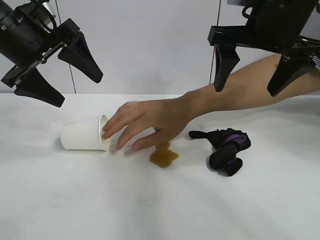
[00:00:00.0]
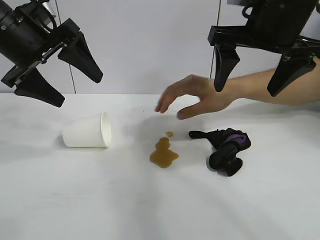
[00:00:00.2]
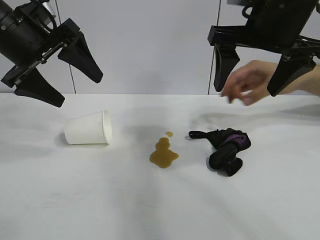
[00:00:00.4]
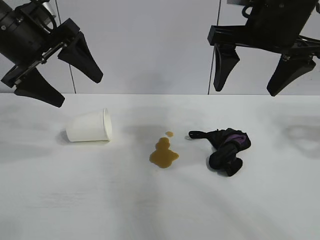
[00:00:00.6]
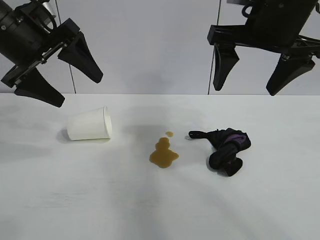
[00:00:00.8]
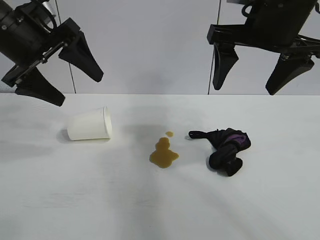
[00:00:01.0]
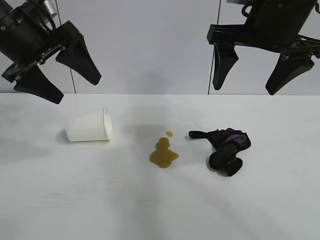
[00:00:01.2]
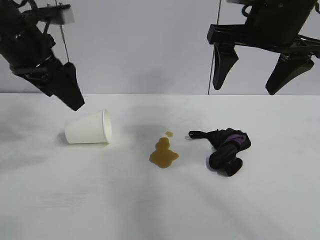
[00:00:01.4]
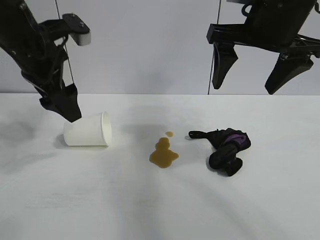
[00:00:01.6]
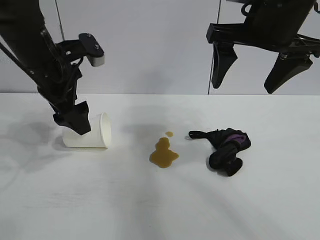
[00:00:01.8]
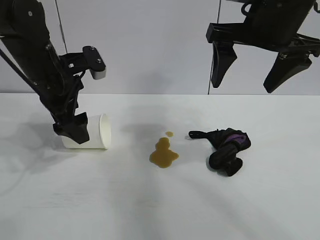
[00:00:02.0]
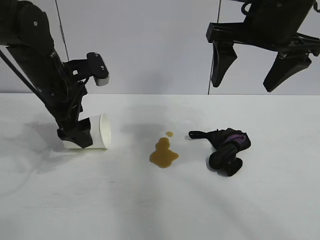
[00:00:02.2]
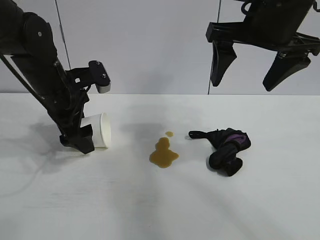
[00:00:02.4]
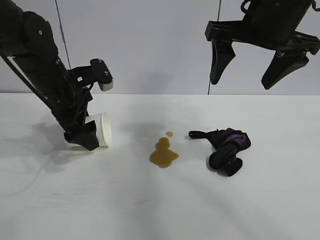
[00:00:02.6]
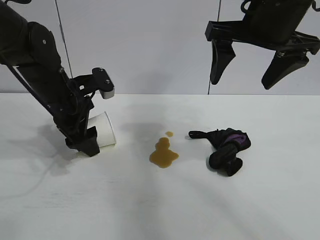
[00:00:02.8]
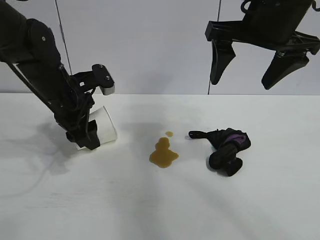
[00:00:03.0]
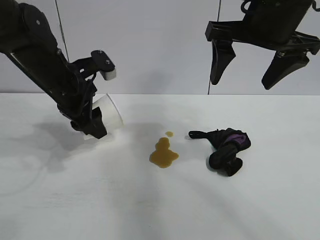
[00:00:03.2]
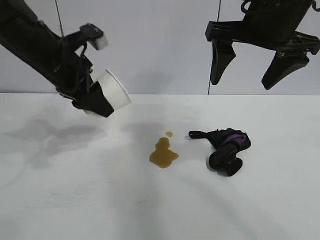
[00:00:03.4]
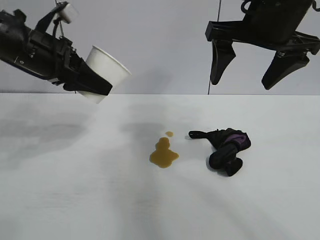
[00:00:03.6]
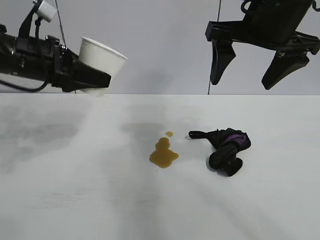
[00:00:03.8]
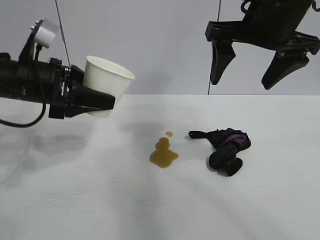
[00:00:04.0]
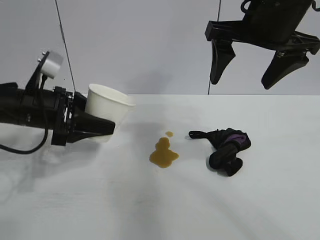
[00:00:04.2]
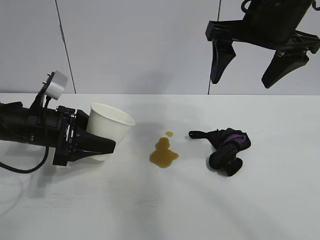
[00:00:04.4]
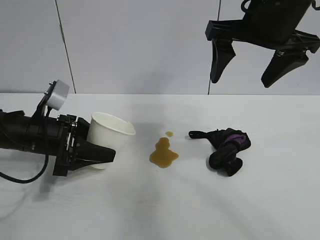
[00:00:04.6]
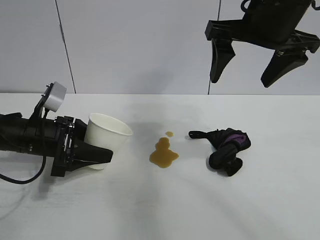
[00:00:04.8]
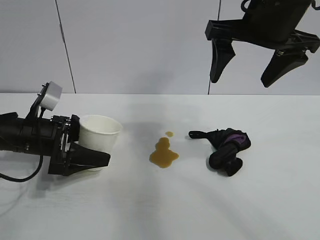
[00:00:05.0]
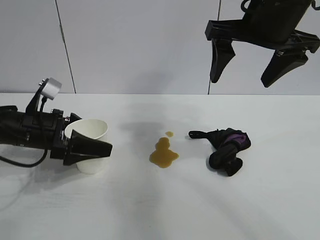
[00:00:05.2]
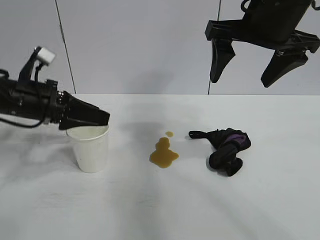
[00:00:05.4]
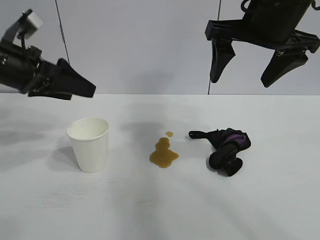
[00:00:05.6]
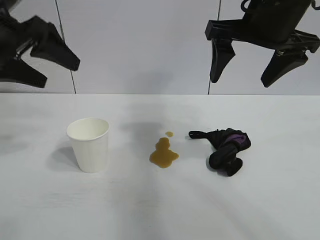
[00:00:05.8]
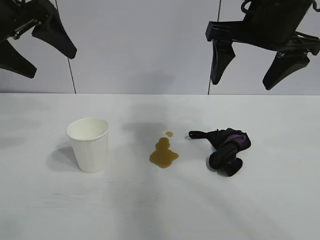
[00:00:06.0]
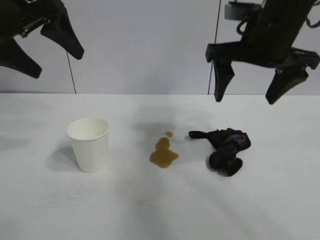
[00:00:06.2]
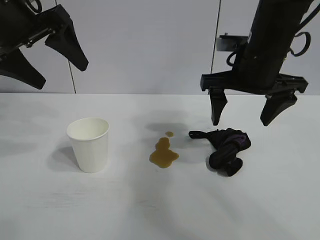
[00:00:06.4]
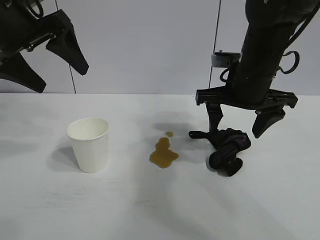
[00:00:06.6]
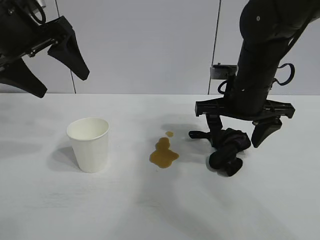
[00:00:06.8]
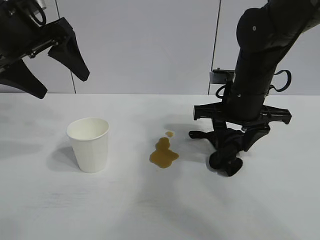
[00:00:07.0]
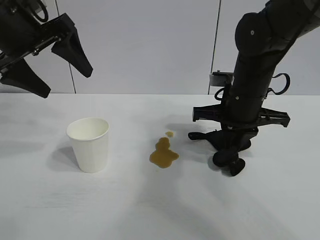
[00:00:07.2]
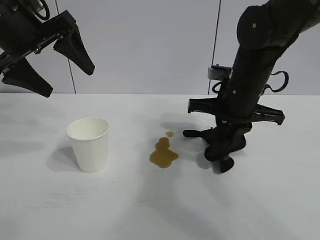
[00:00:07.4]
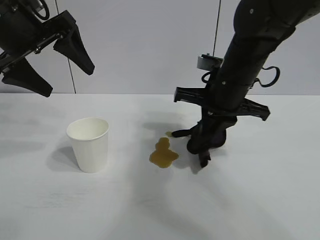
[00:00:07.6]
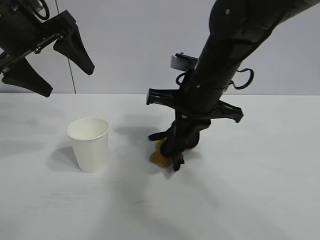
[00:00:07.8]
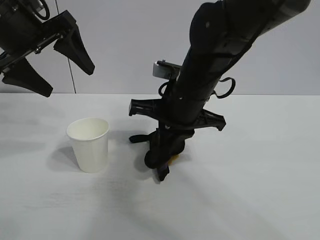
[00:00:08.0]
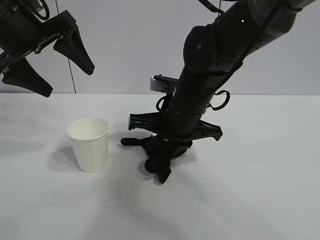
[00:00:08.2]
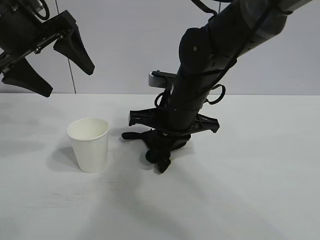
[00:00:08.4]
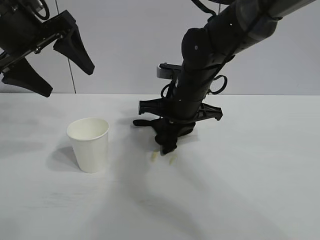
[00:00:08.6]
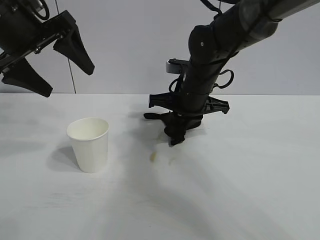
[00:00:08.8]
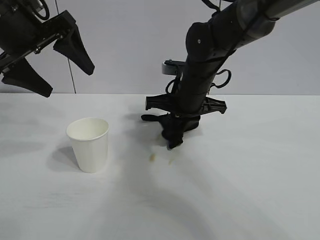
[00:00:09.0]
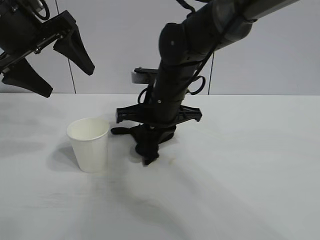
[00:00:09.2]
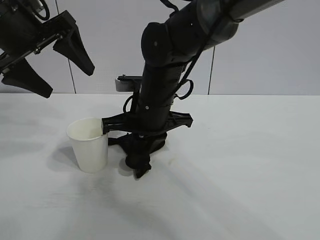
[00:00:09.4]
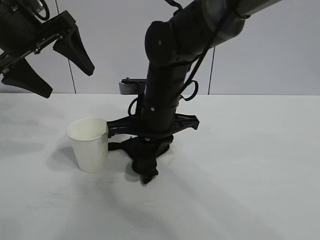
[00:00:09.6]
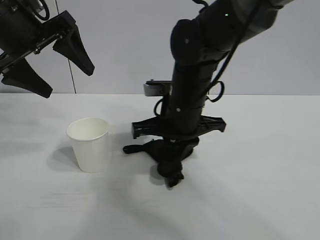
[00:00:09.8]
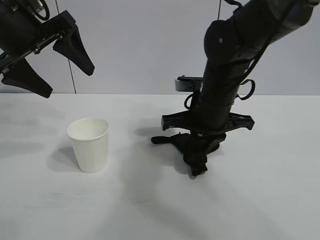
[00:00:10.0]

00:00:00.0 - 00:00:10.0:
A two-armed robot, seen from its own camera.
Task of the whole recording: the left gripper pick up the fallen cup and place it upright, the right gripper grasp the black rag and wipe the stain on the table, the right gripper put the black rag back in its original position.
Step, 00:00:00.8 - 00:00:02.8: Grasp the paper cup with left gripper.
Step, 00:00:03.0 - 00:00:05.0: Stand the paper cup upright with left gripper.
Step, 00:00:05.4 - 00:00:07.0: Grasp the rag with right gripper.

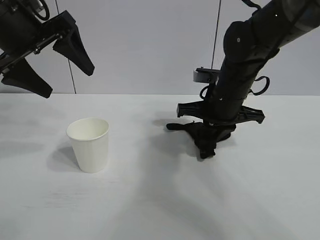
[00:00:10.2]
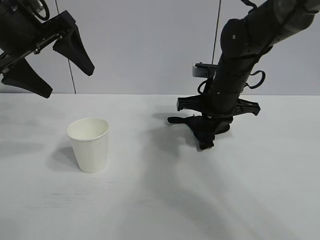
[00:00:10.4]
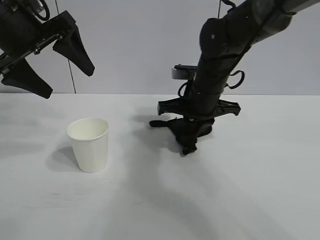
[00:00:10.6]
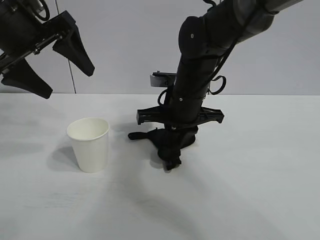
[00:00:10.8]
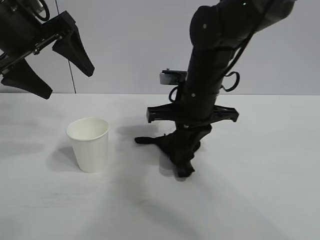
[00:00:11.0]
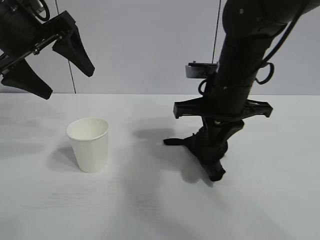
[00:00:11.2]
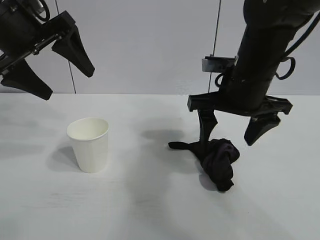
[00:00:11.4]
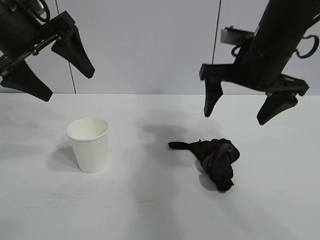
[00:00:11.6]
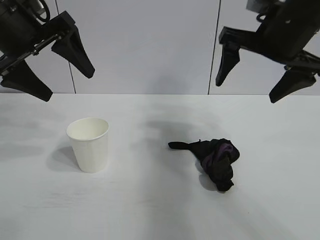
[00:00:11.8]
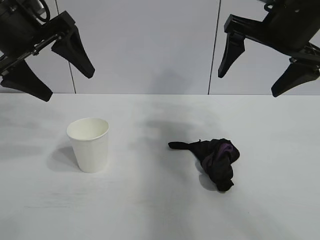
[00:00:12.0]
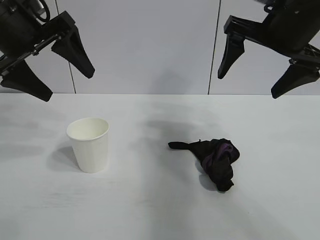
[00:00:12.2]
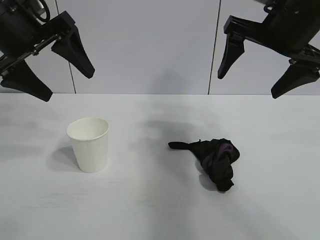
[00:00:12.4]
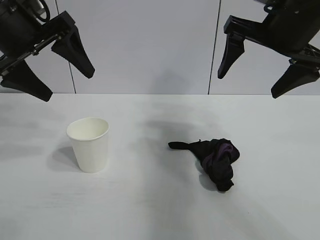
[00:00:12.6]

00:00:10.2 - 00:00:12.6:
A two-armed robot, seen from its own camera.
Task of the whole recording: the left gripper pick up the fallen cup and place it upright, the right gripper grasp the black rag and wipe the stain on the table, the right gripper put the black rag back in its original position.
Step, 00:00:11.0 - 00:00:11.2: Place the rag on the table with right gripper.
